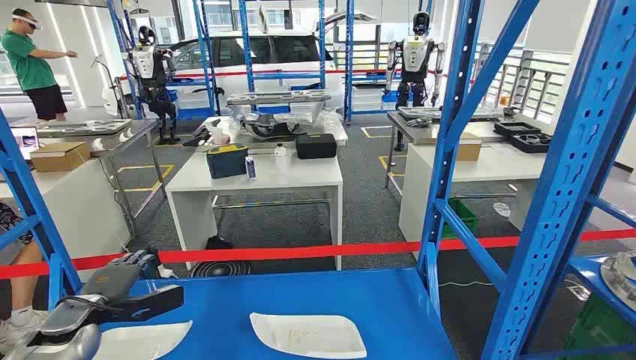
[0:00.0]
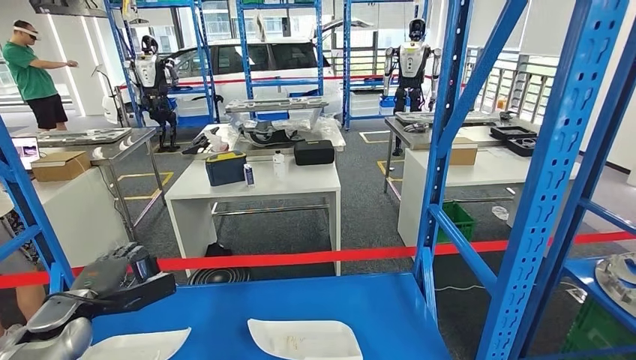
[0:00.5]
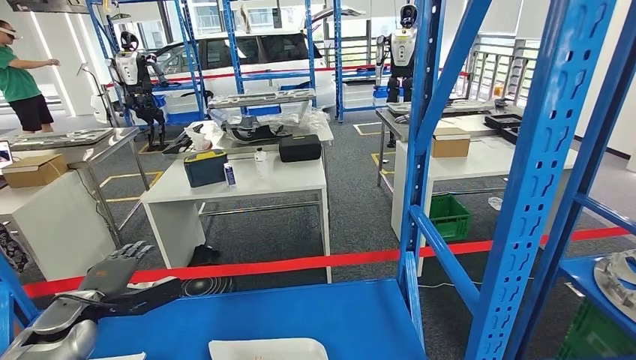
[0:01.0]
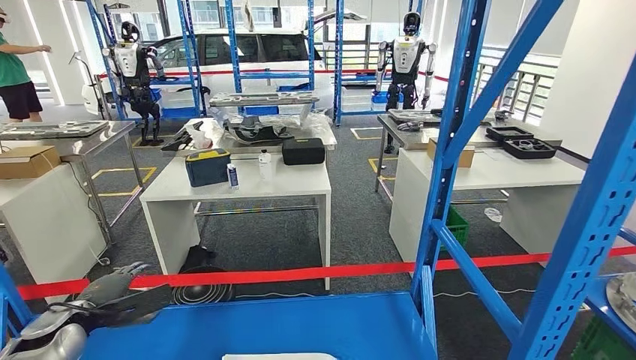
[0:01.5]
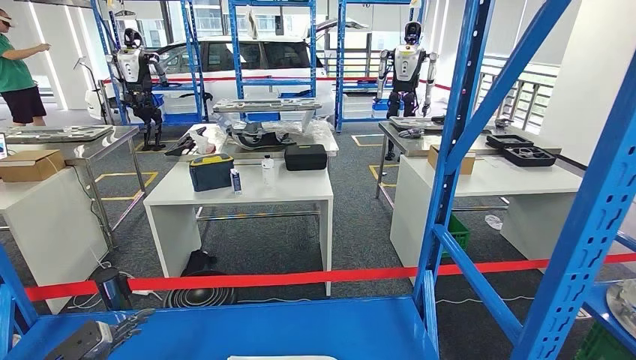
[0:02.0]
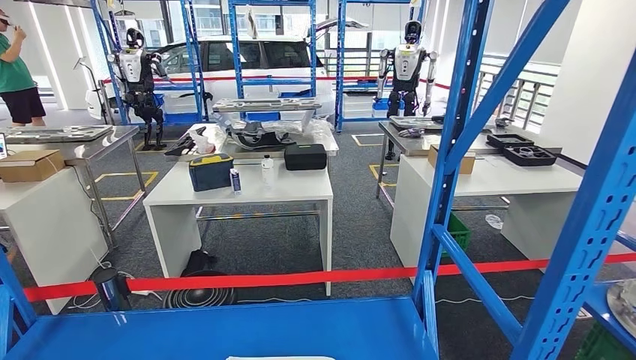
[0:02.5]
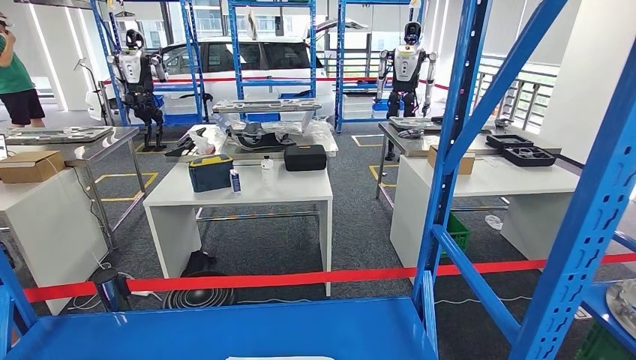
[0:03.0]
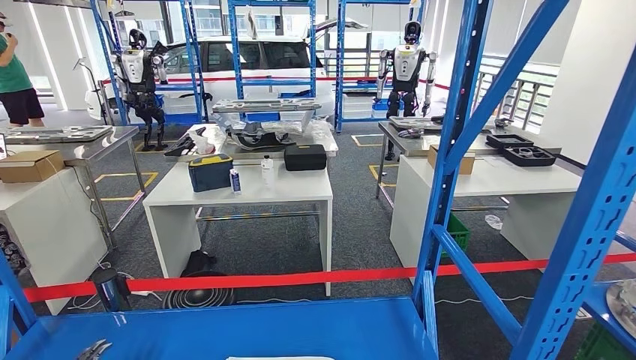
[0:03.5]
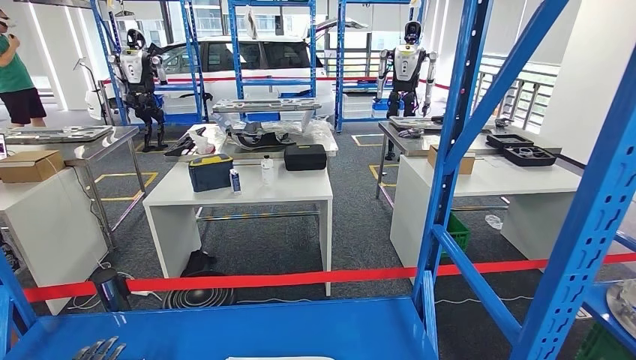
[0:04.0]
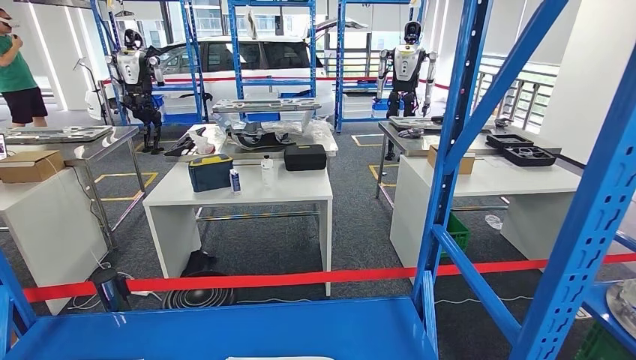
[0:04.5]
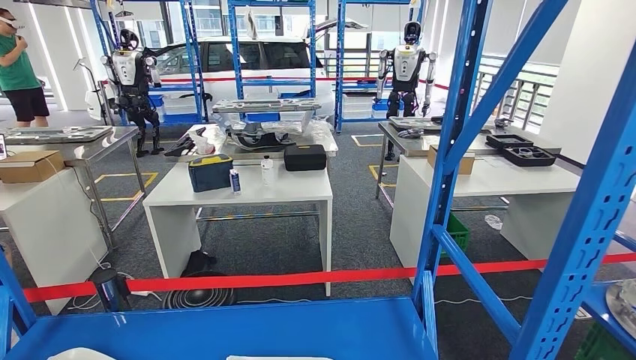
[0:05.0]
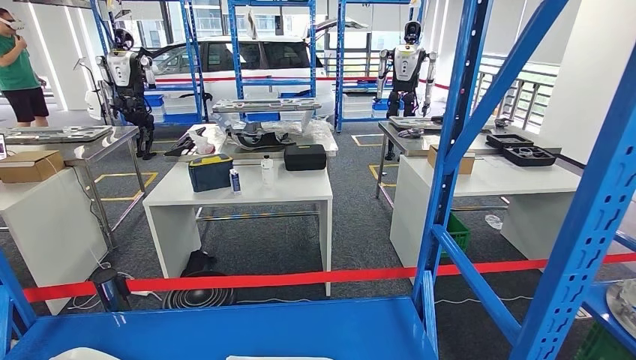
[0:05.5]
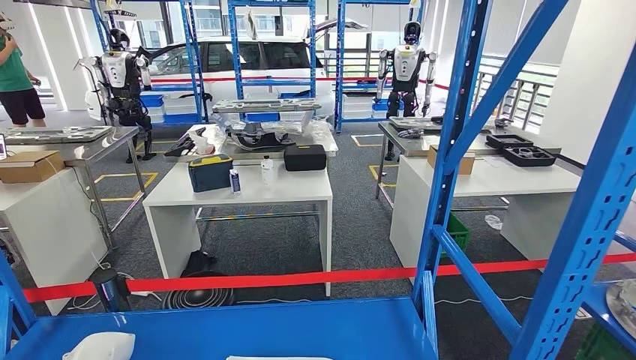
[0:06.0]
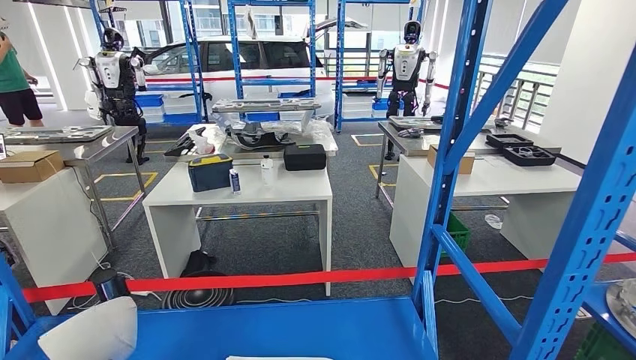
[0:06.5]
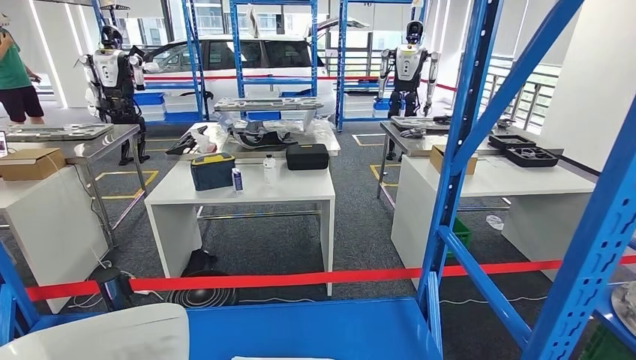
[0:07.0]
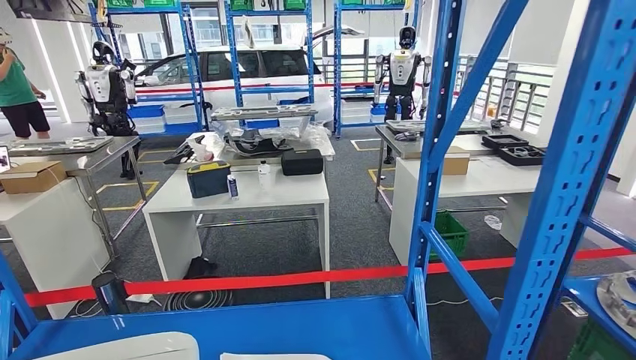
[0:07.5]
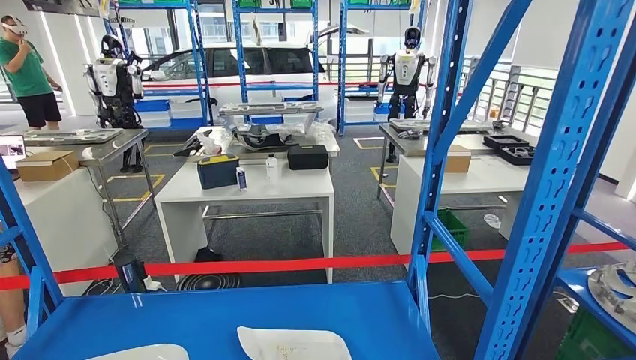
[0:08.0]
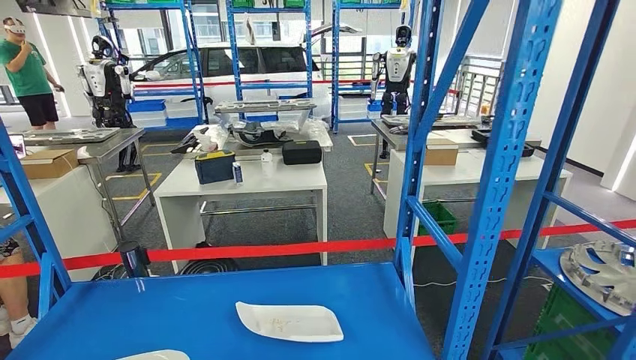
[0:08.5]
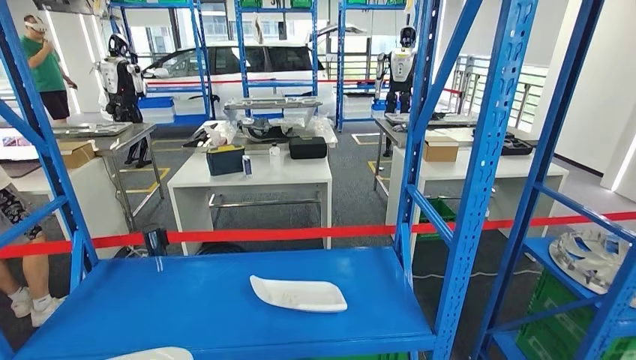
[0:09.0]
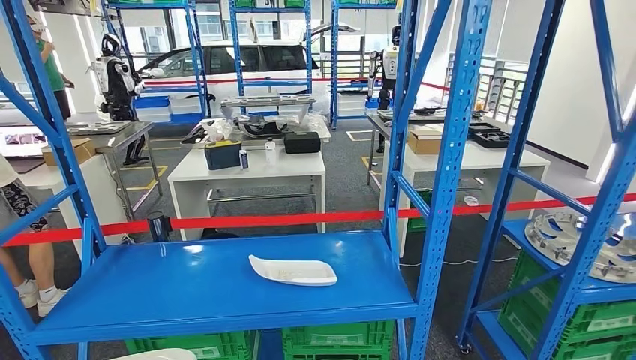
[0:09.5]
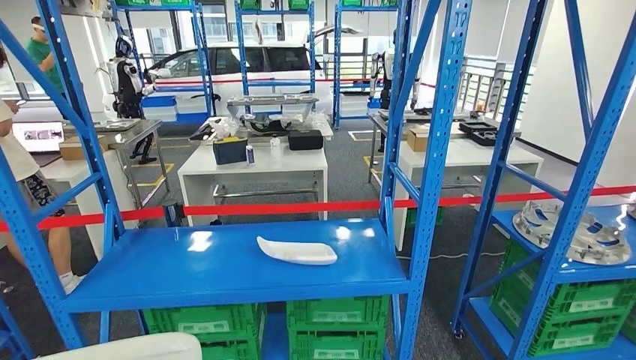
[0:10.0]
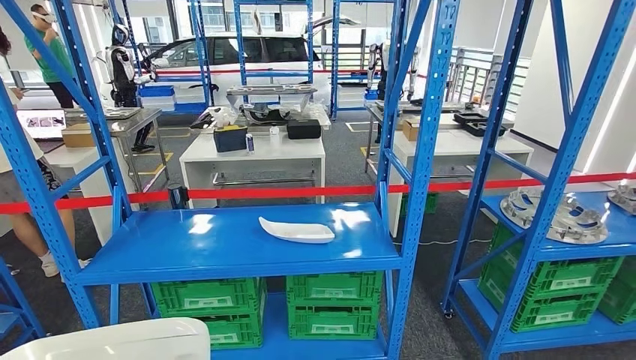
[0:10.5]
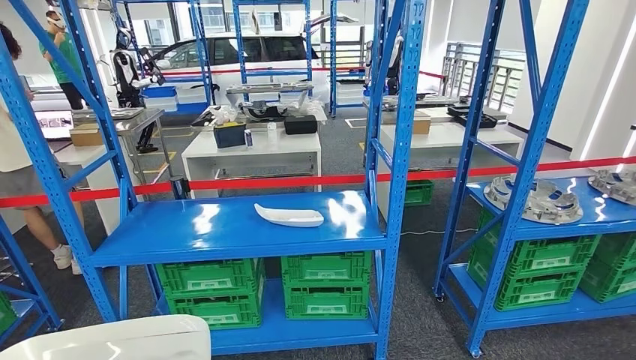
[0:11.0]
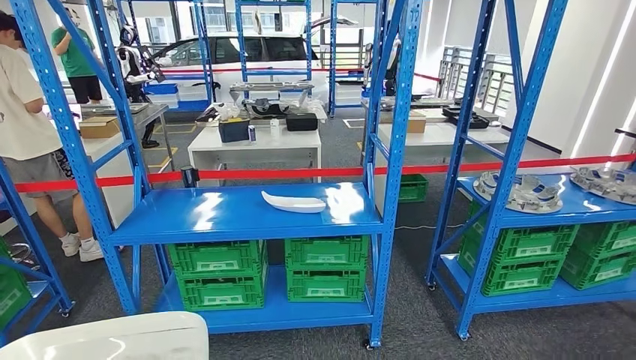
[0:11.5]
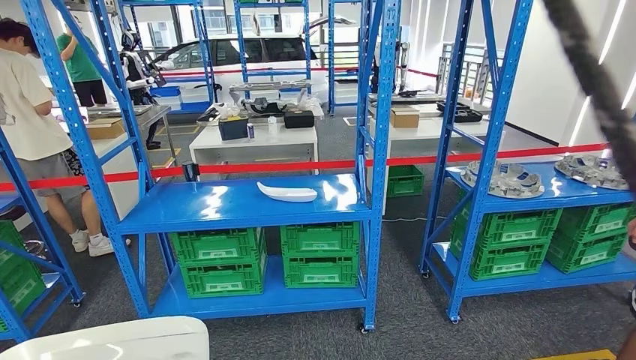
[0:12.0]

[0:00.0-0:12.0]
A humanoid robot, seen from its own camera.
Step, 0:00.0 to 0:06.5: Pick up the small parts from the shelf.
0:02.0 to 0:04.0: The left hand goes about 10 cm downward and backward.

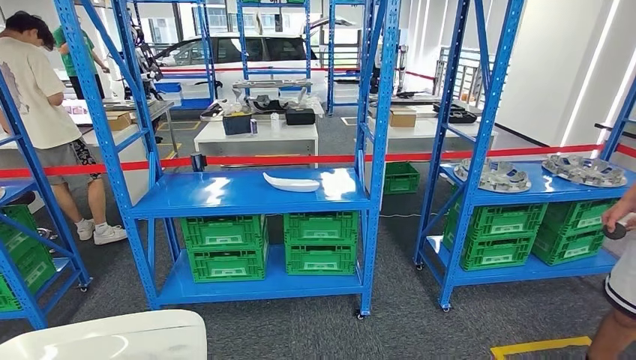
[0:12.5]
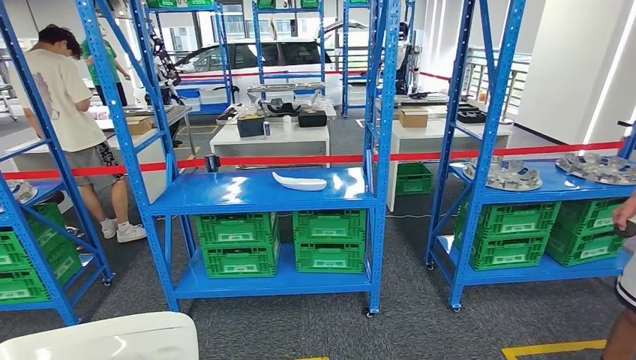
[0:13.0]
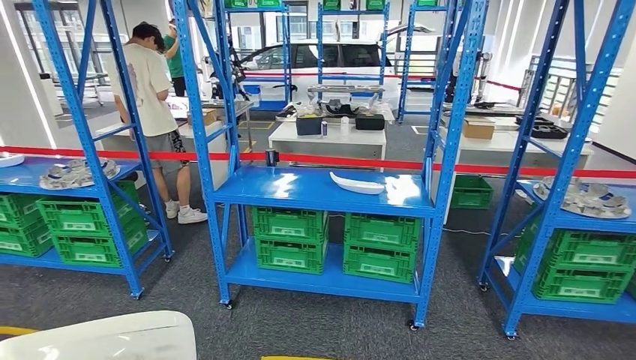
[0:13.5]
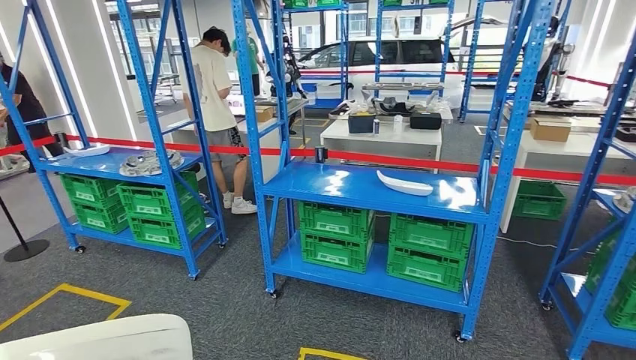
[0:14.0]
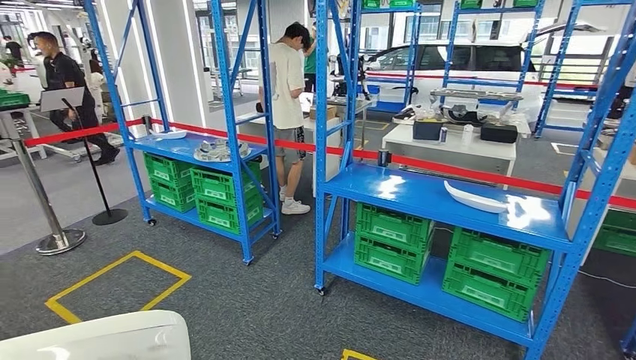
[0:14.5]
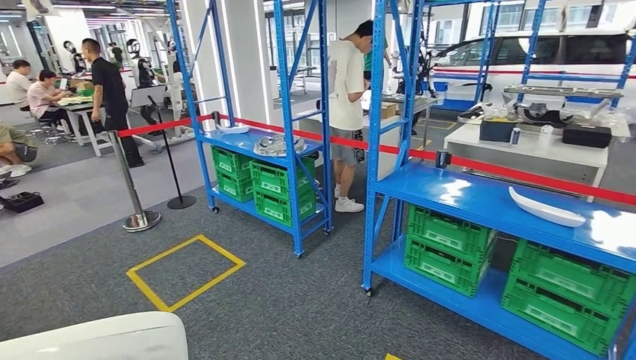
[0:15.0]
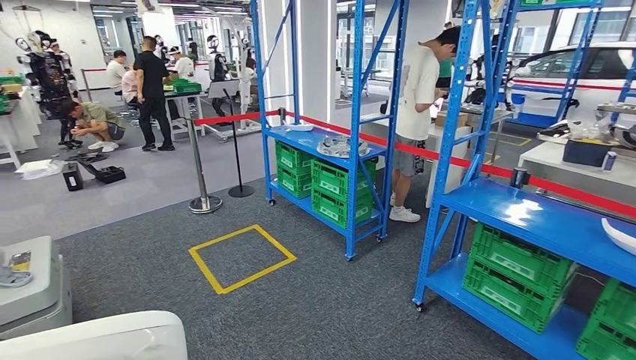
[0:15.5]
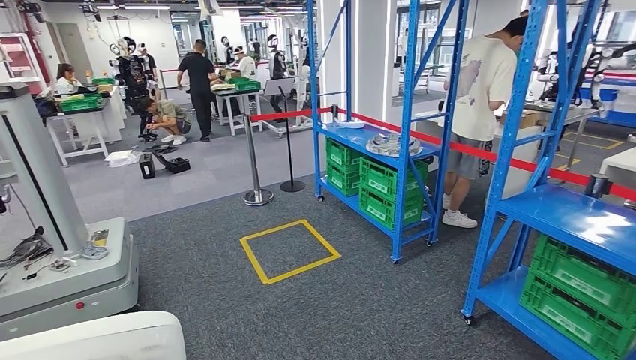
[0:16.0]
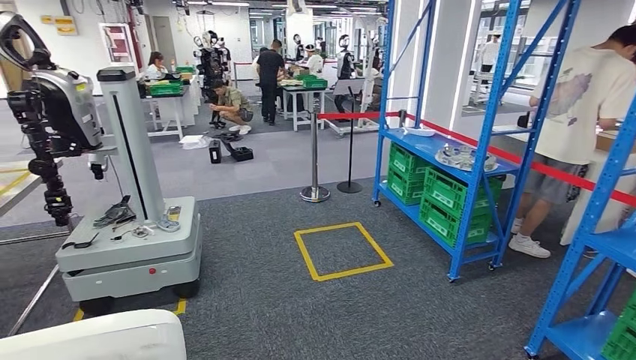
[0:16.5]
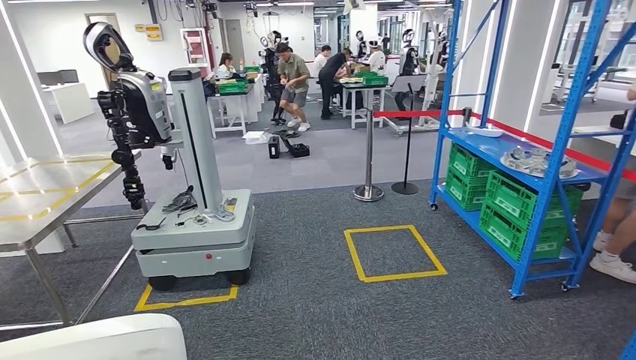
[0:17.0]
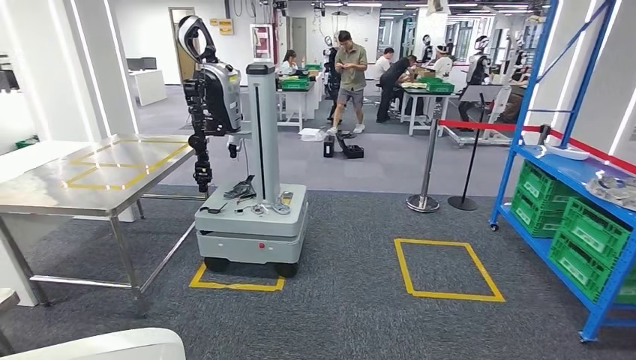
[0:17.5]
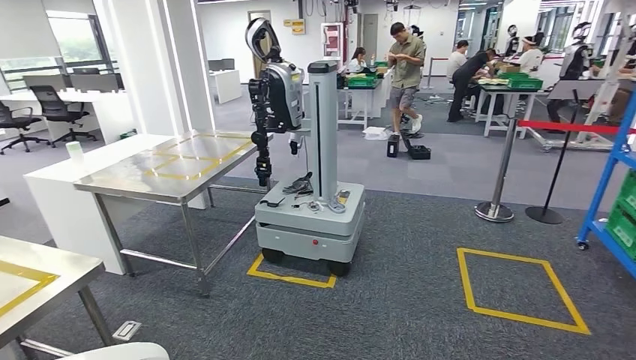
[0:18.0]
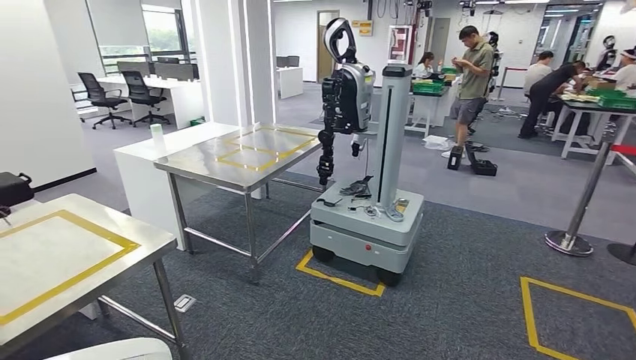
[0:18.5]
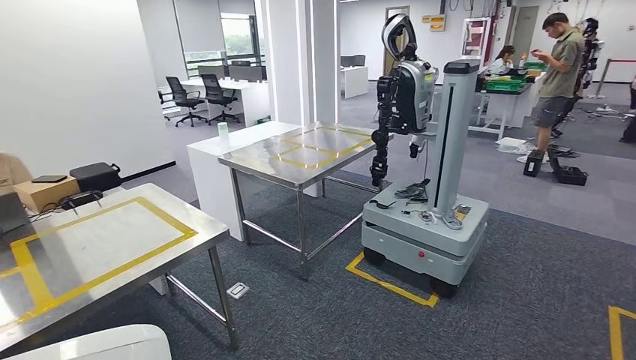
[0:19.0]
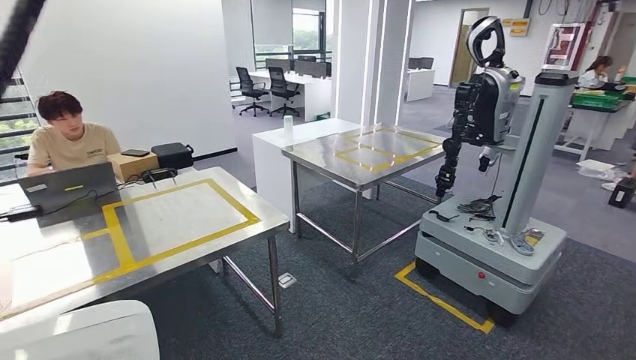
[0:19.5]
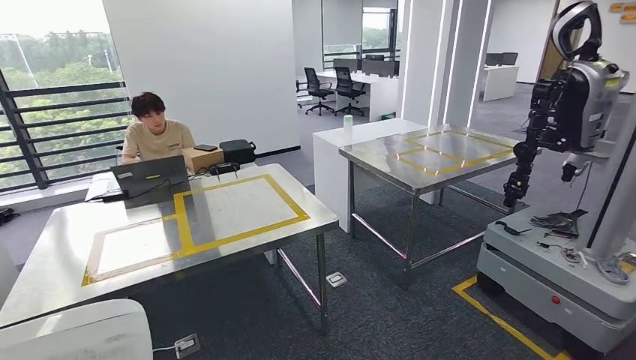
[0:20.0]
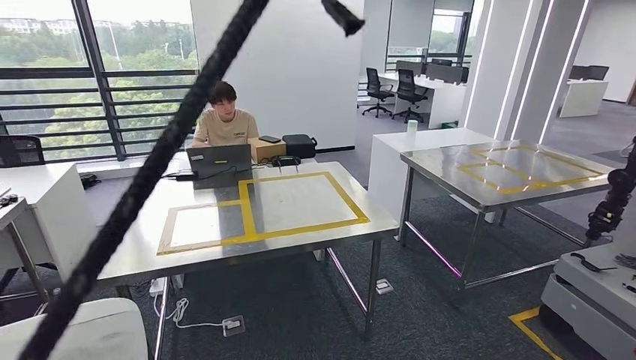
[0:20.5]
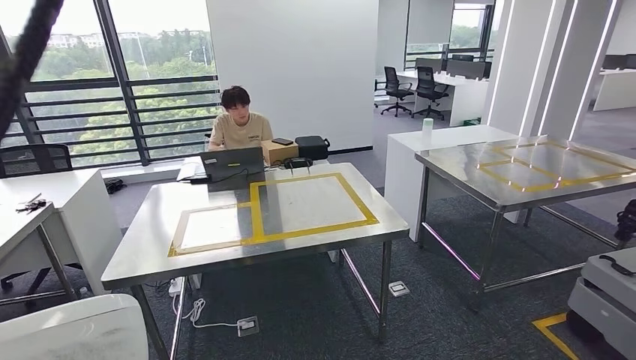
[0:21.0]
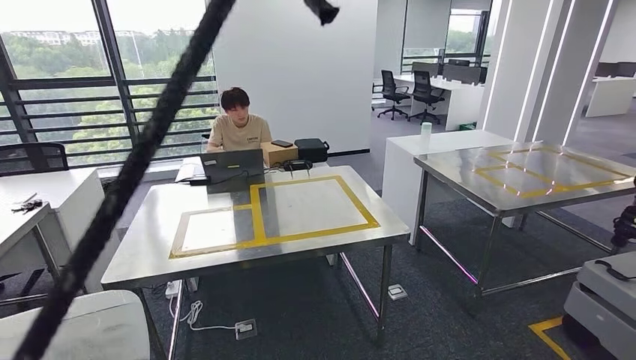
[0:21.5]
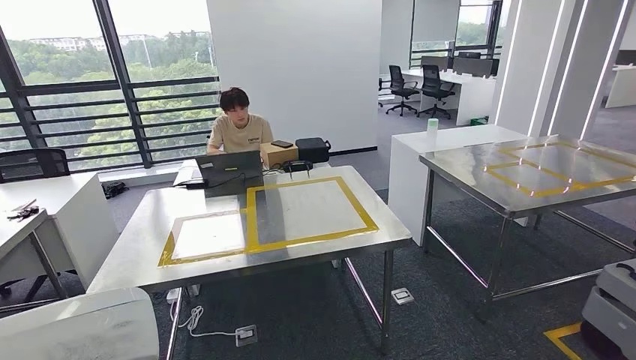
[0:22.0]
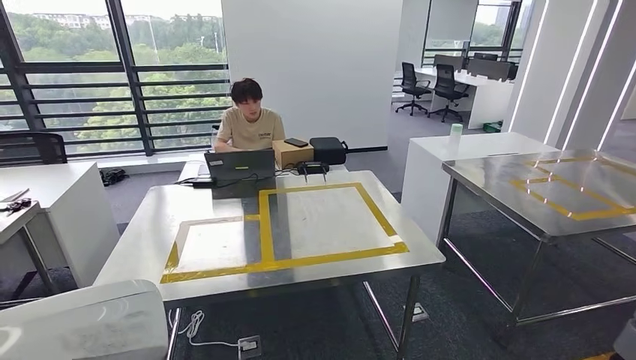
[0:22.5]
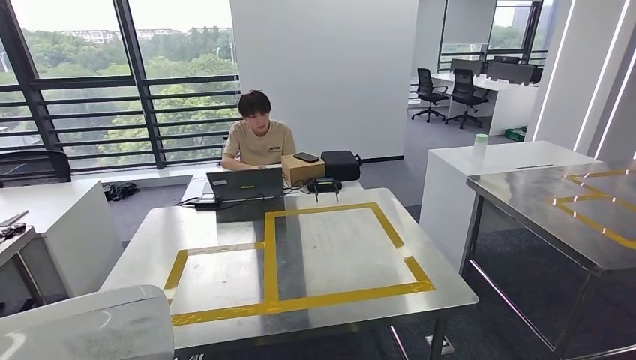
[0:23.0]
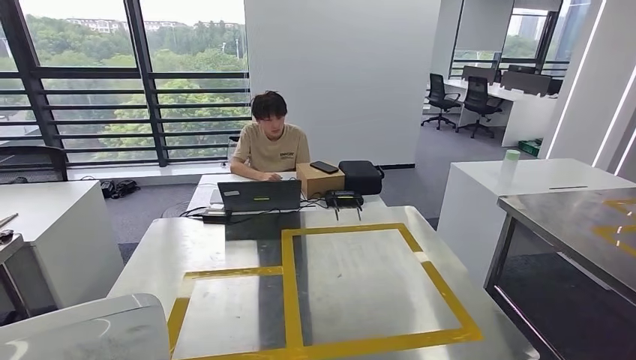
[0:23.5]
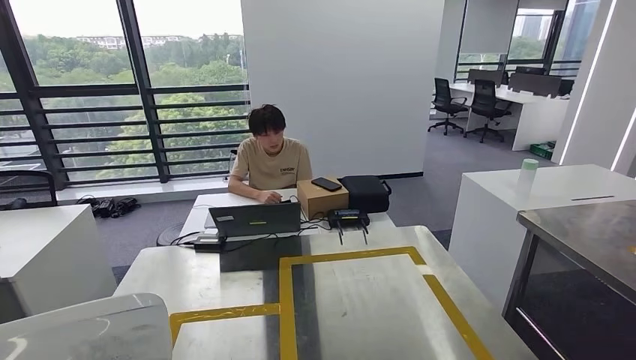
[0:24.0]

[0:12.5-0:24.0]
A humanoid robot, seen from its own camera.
Step, 0:12.5 to 0:19.5: Move the small parts to the workbench.
